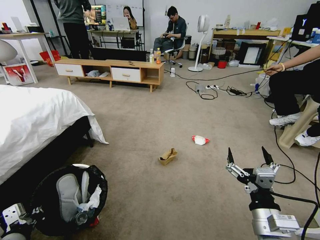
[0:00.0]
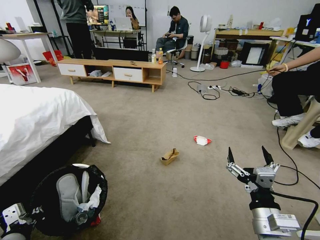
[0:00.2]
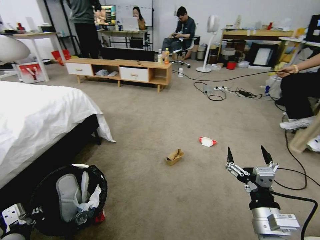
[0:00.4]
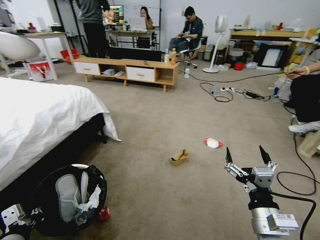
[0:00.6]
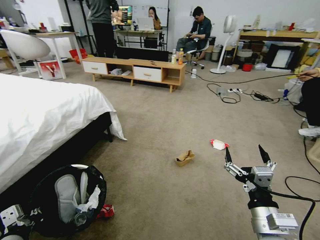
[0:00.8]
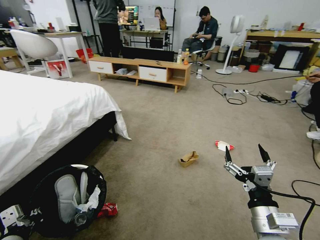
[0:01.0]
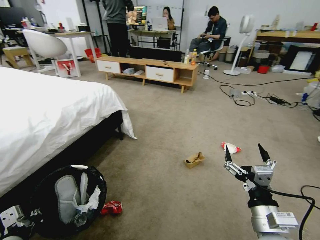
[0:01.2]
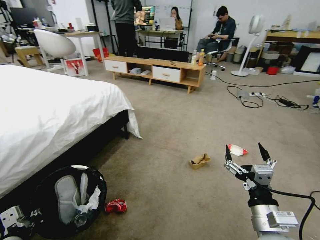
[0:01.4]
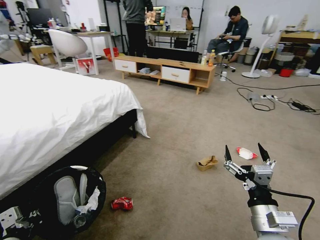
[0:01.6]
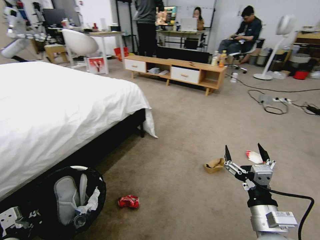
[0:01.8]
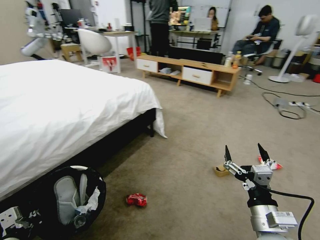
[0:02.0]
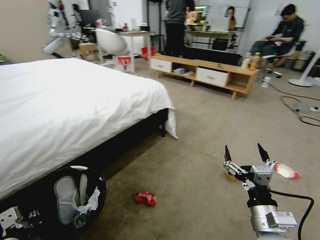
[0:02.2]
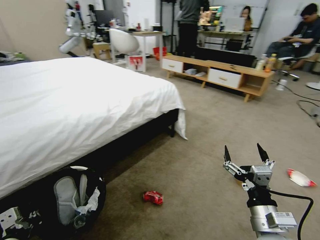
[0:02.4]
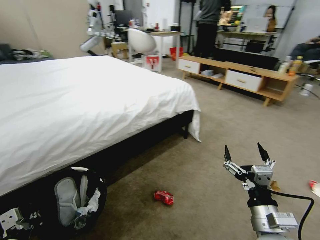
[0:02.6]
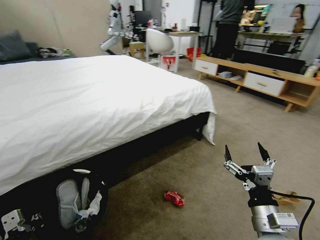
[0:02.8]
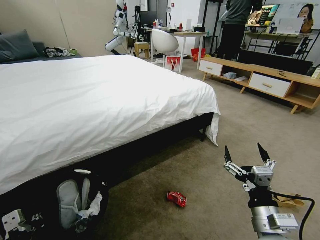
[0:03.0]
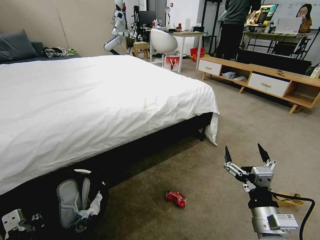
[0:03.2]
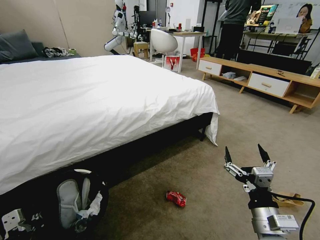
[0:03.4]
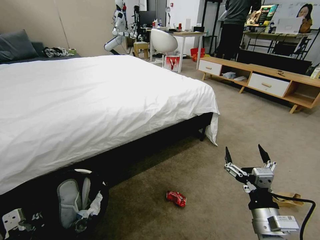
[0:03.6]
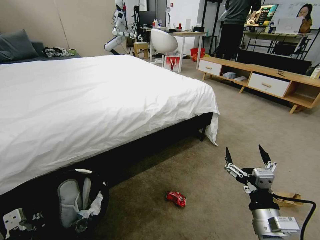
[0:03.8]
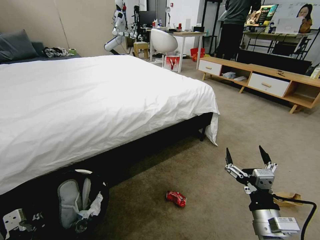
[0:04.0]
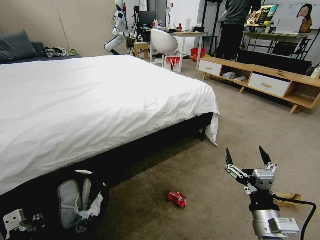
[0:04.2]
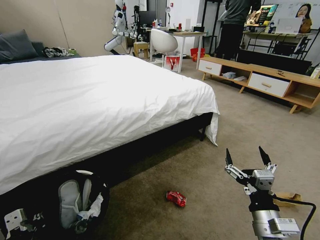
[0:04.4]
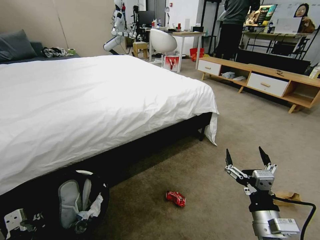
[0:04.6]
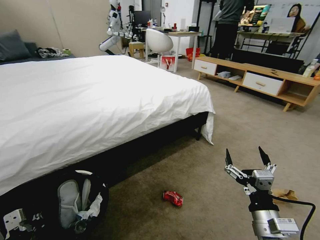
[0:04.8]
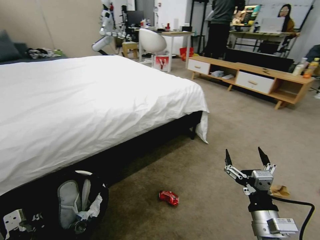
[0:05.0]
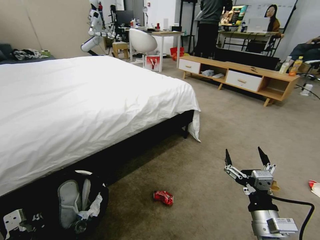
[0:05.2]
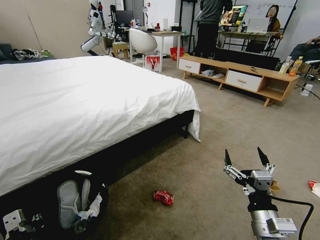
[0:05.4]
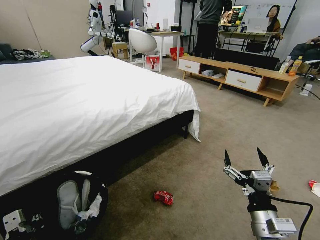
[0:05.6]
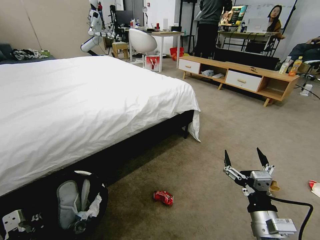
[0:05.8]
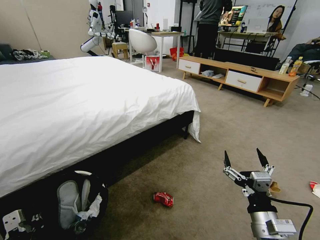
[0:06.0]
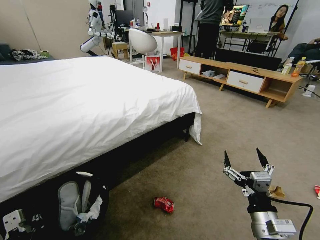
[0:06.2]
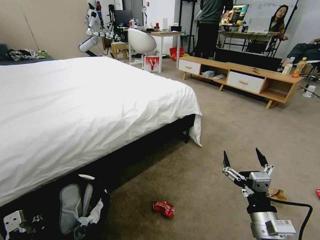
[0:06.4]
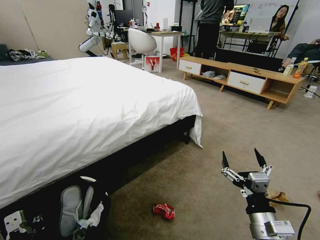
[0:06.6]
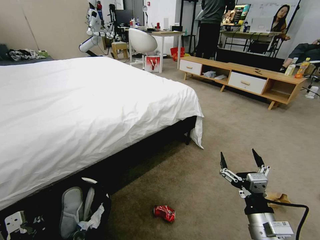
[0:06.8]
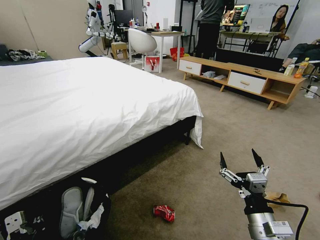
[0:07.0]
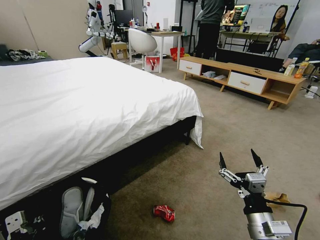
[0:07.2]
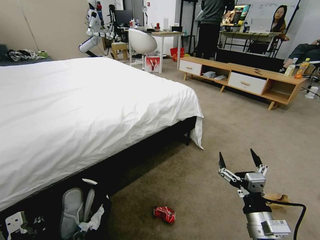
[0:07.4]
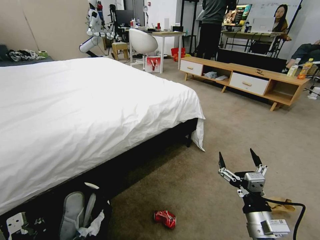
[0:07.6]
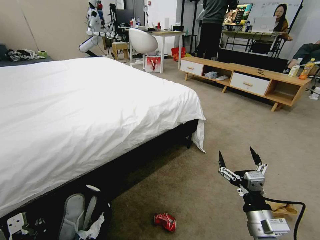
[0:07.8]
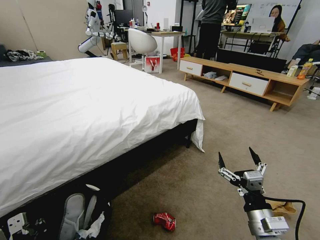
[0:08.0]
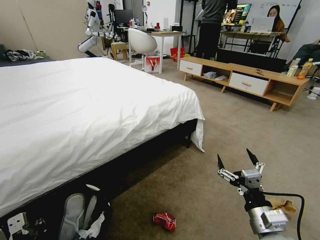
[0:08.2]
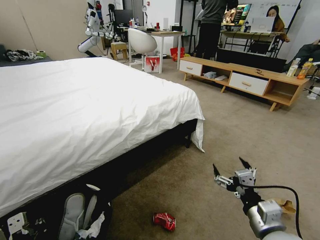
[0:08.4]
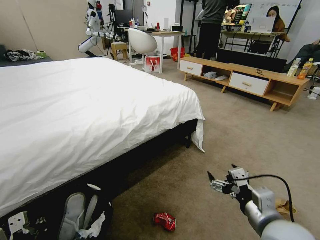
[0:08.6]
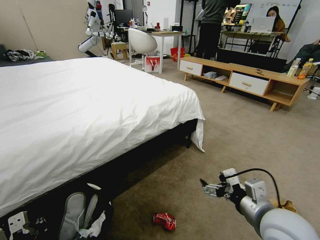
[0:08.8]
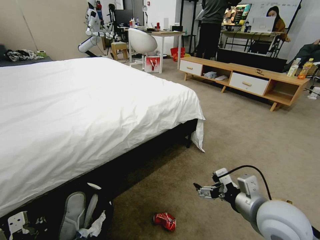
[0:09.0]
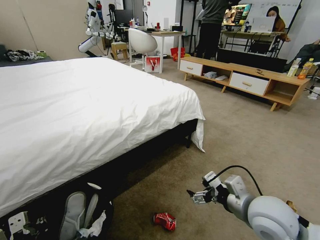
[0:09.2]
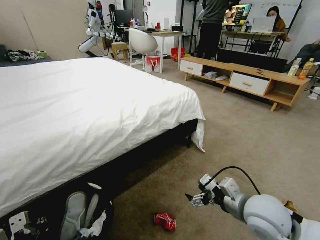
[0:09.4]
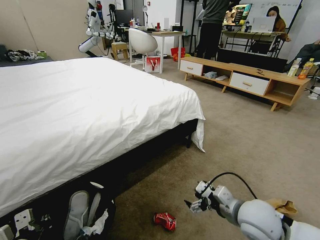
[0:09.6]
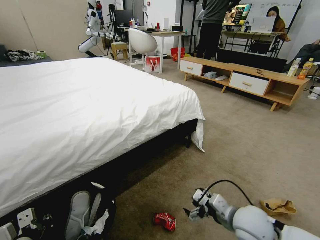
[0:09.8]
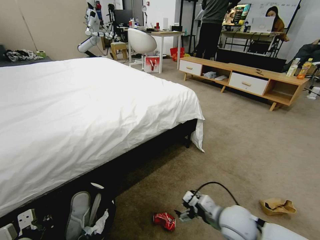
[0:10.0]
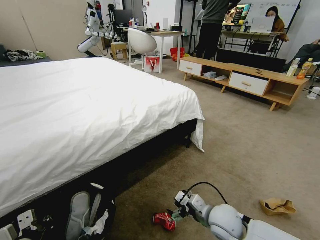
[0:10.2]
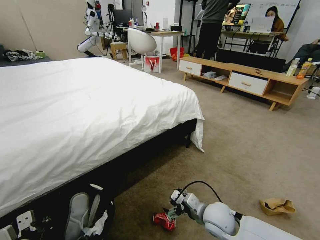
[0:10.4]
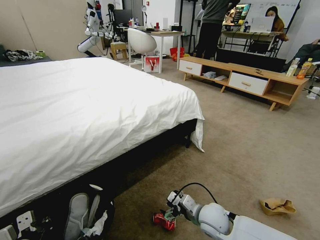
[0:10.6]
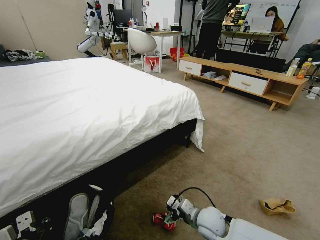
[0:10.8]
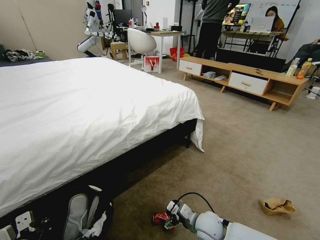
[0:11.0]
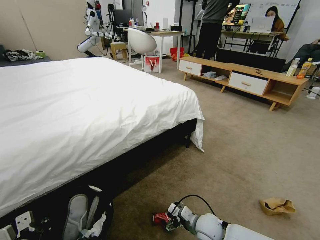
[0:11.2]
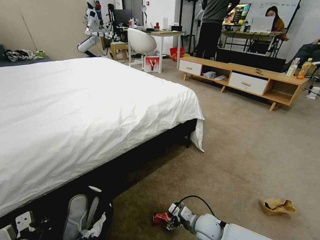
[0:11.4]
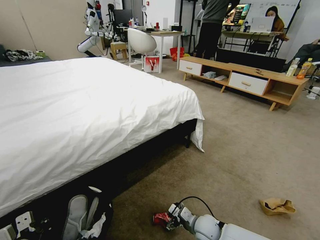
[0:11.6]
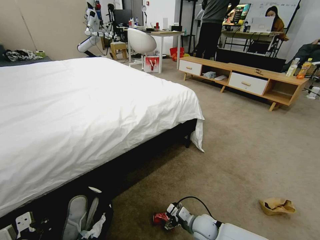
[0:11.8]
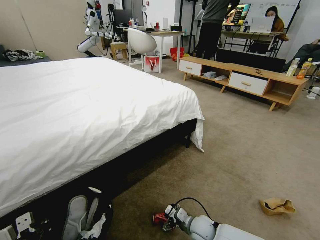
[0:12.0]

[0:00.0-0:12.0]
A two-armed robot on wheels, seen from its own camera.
Task of the whole recording: Pick up the trash bin and place the garbage on the floor into it.
0:03.0 to 0:04.4: The two grippers keep their place.
0:07.6 to 0:09.0: The right gripper heads upward, covering some 10 cm.
0:09.0 to 0:10.4: The right gripper goes some 20 cm downward, to the left and forward.
0:10.4 to 0:12.0: The right gripper heads downward, covering approximately 15 cm.

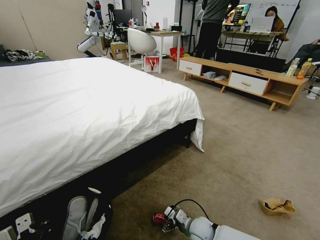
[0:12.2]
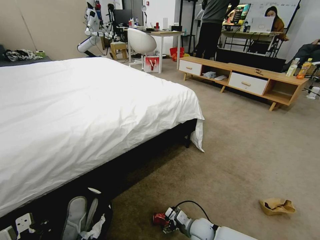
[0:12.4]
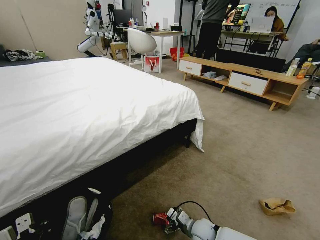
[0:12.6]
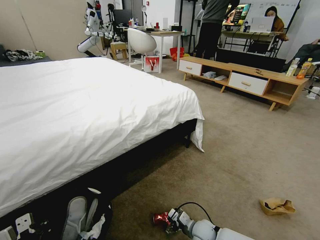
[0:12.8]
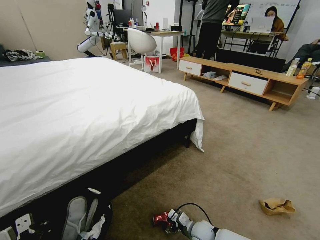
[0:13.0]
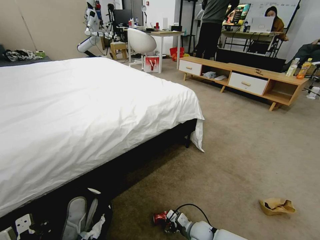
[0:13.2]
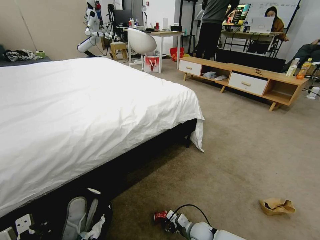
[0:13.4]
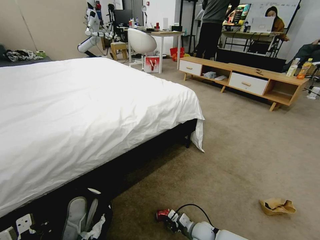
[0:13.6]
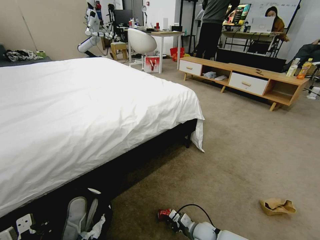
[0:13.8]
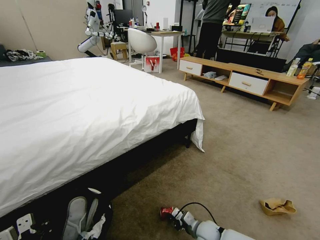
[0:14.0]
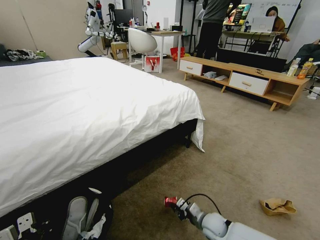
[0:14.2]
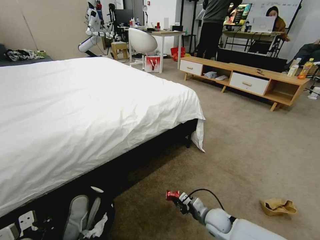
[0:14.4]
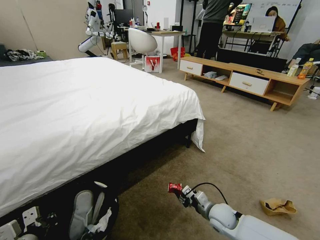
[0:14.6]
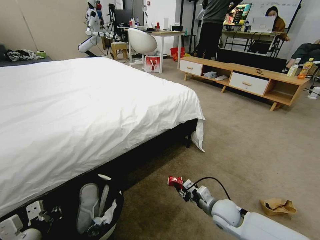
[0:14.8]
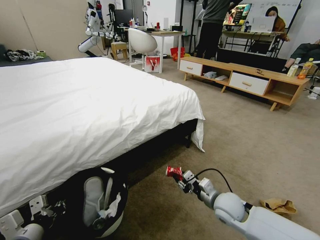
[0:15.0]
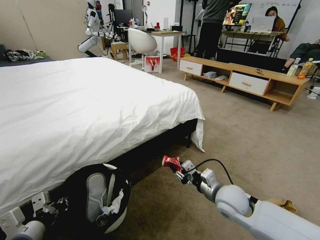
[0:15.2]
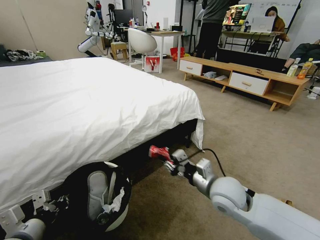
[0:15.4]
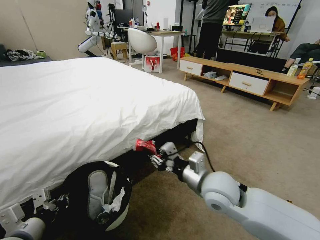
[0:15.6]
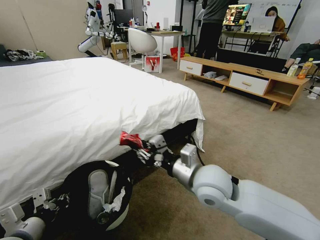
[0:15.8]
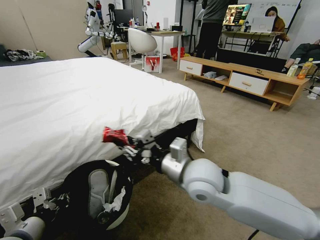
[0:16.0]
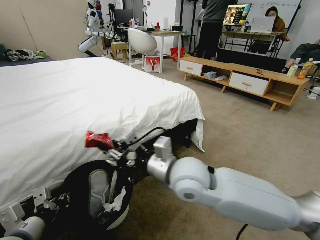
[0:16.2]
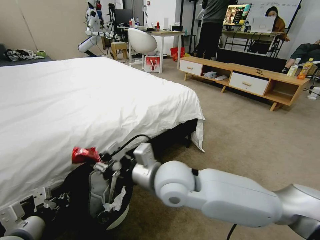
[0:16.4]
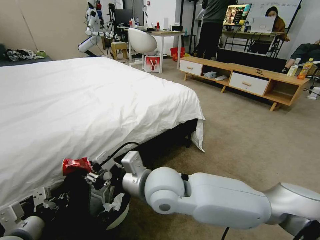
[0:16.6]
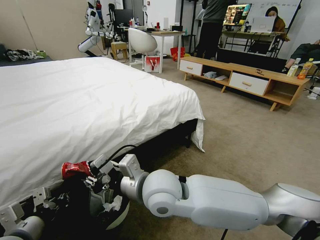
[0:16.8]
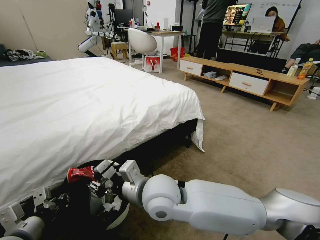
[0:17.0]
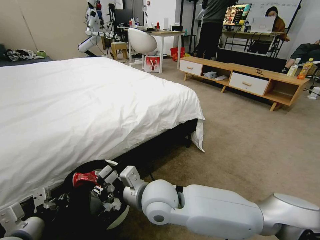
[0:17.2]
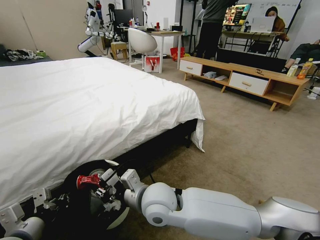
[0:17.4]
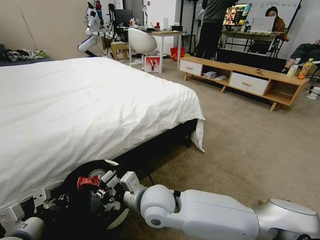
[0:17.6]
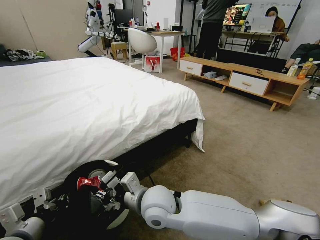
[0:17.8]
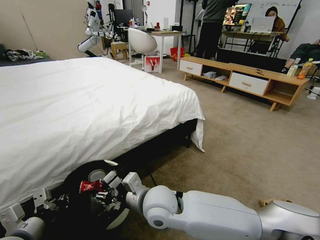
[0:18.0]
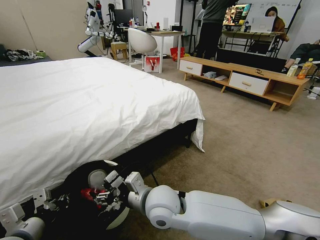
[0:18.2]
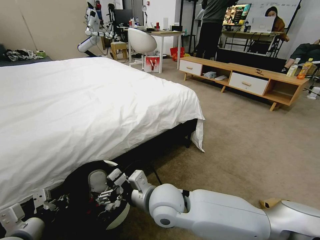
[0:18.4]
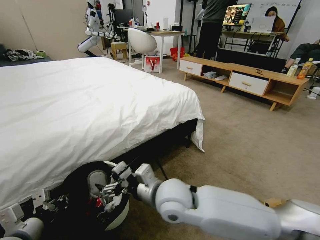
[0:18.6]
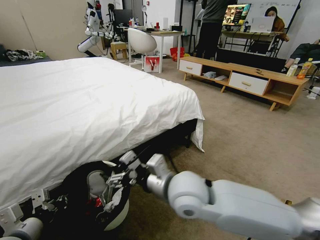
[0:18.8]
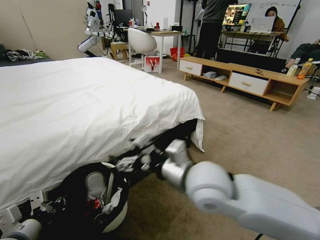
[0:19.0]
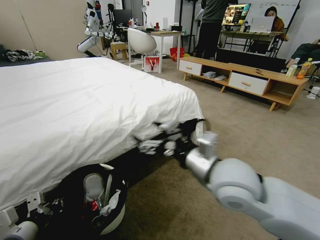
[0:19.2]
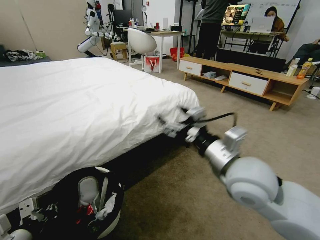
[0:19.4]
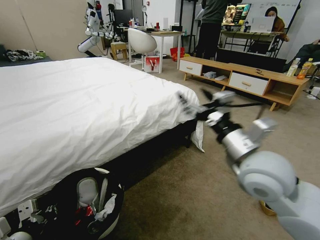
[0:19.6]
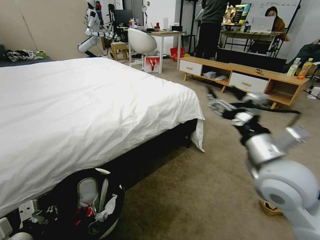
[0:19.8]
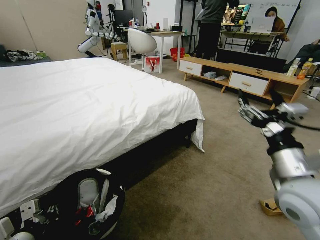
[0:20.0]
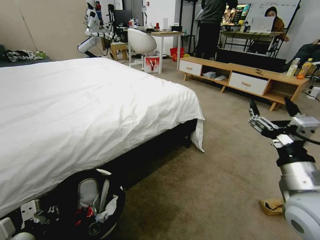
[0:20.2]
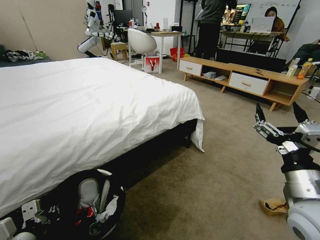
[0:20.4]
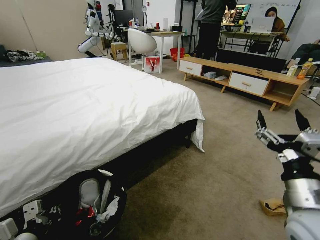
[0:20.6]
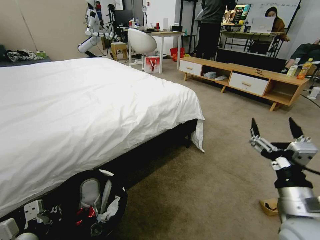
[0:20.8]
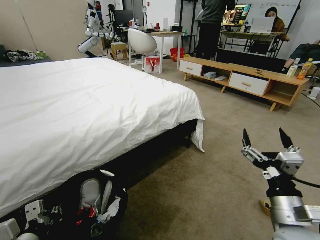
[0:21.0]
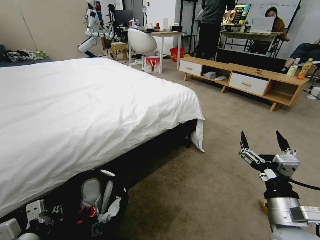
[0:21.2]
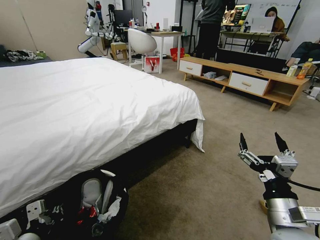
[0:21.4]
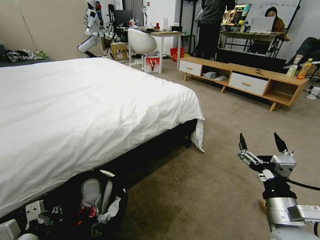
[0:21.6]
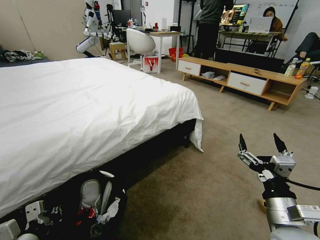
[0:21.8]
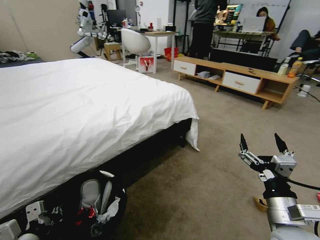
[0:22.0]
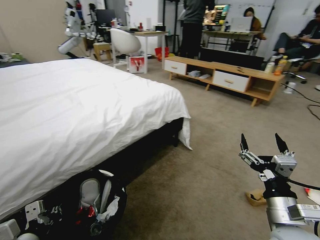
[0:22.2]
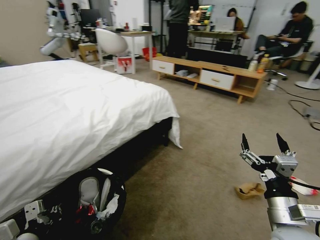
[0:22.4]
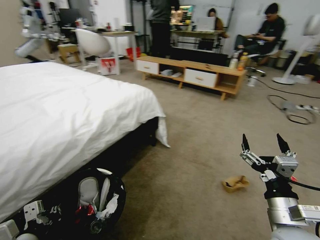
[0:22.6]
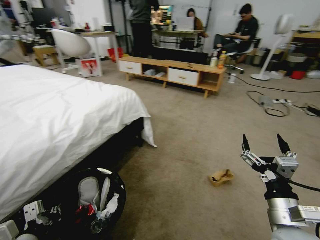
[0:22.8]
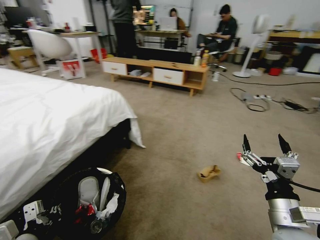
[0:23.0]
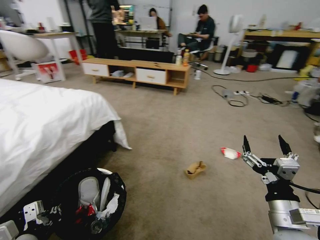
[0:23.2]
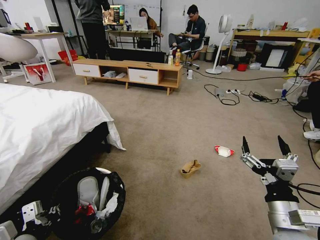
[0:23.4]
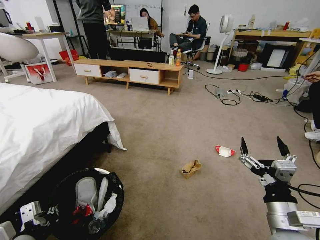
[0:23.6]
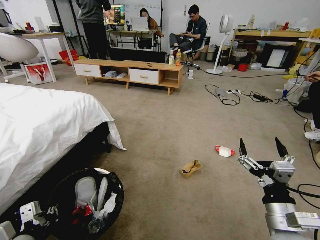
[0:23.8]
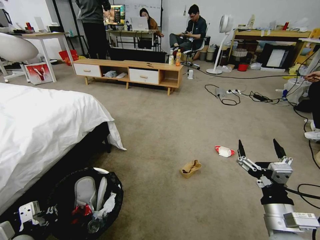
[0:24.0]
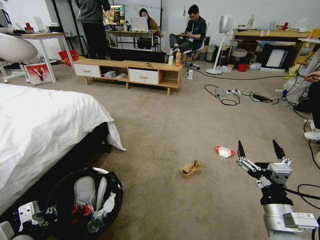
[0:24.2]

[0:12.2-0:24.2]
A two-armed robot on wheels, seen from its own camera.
Task of the whole recording: Pick up the trash bin and place the garbage on the floor into it.
0:12.2 to 0:13.8: The right gripper closes up.
0:13.8 to 0:15.2: The left gripper is displaced upward by about 5 cm, while the right gripper moves upward, approximately 25 cm.
0:15.2 to 0:16.6: The right gripper travels to the left and upward by approximately 25 cm.
0:16.6 to 0:18.2: The right gripper goes approximately 10 cm downward, and opens.
0:18.2 to 0:19.8: The right gripper shifts approximately 30 cm to the right and upward.
0:19.8 to 0:21.2: The right gripper shifts some 15 cm downward and backward.
